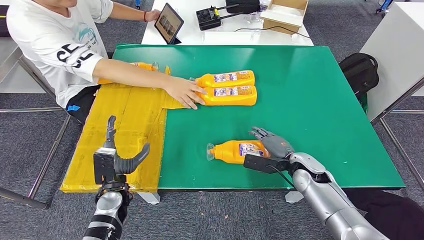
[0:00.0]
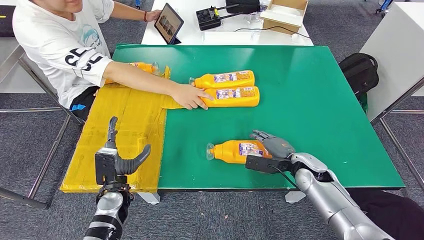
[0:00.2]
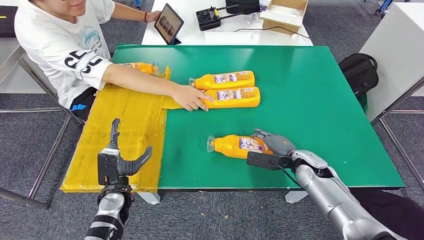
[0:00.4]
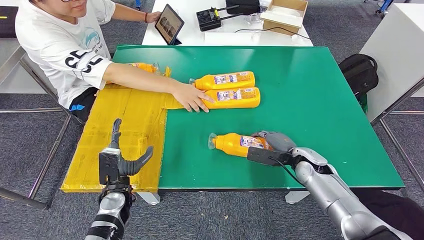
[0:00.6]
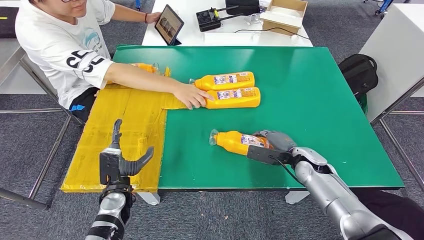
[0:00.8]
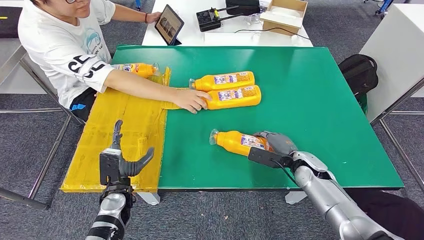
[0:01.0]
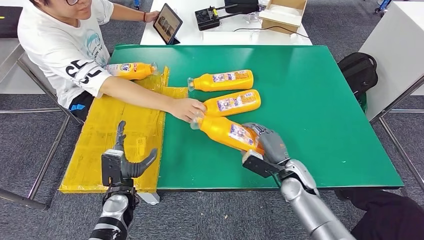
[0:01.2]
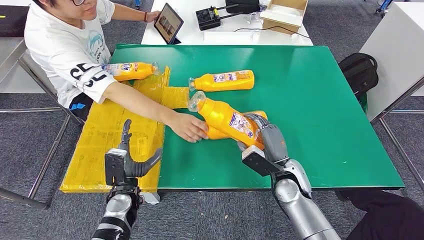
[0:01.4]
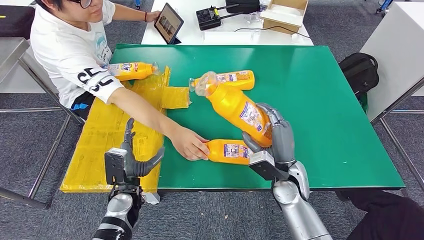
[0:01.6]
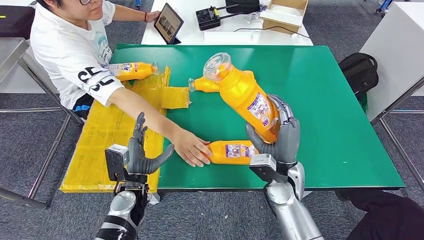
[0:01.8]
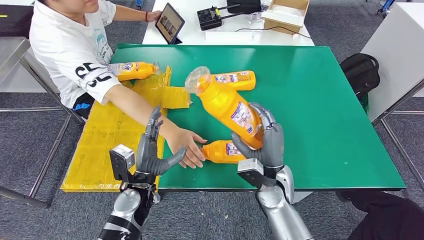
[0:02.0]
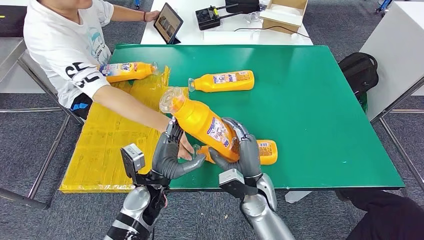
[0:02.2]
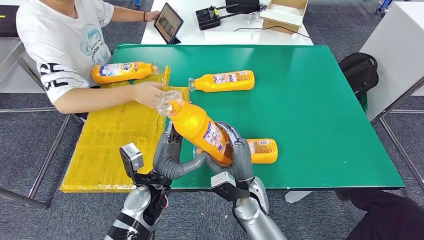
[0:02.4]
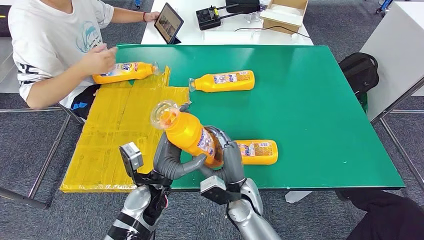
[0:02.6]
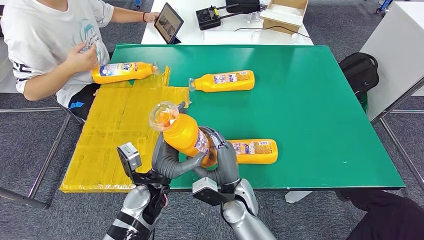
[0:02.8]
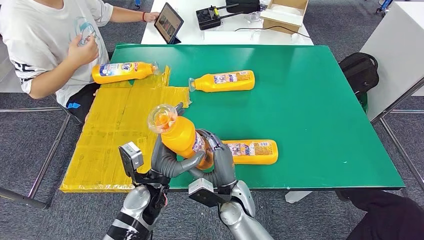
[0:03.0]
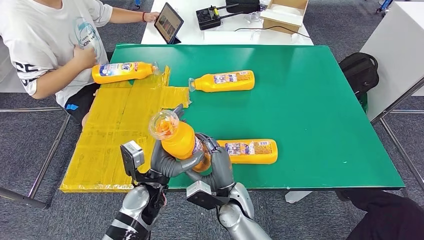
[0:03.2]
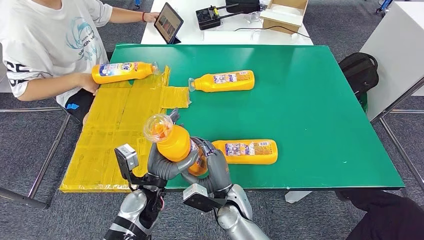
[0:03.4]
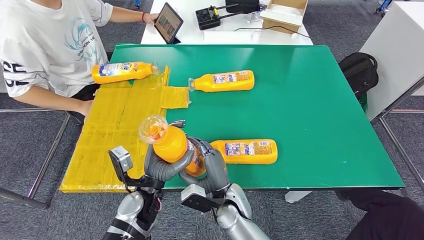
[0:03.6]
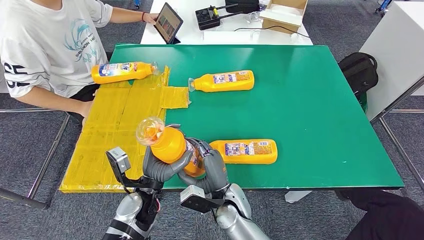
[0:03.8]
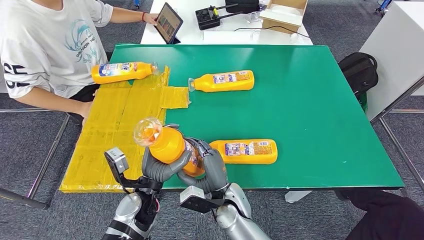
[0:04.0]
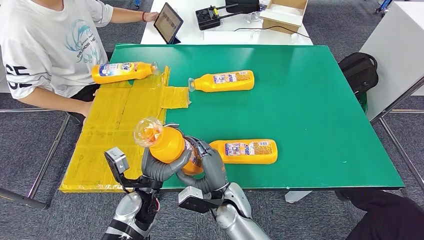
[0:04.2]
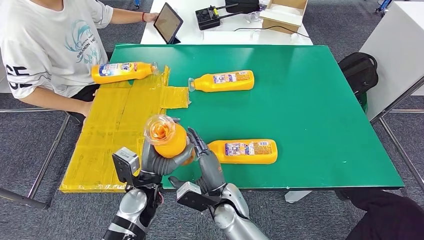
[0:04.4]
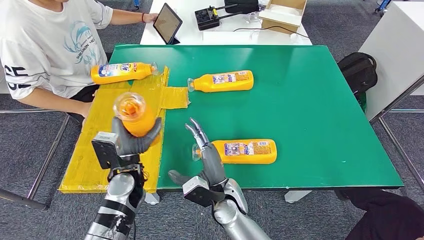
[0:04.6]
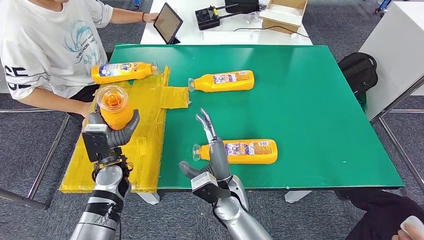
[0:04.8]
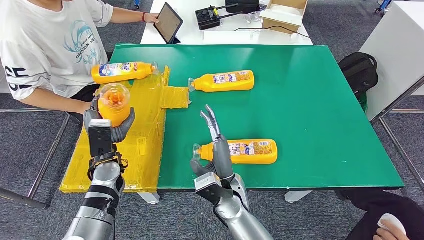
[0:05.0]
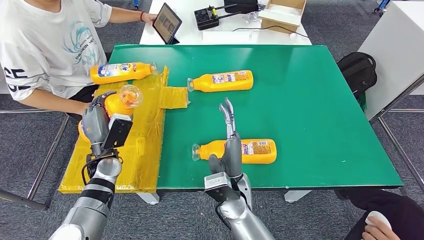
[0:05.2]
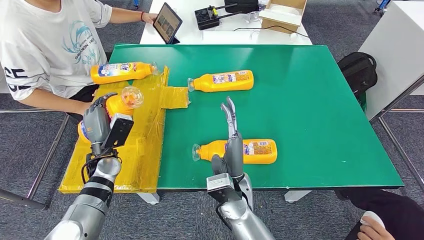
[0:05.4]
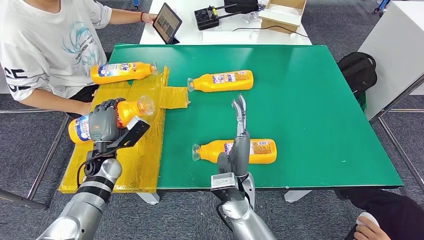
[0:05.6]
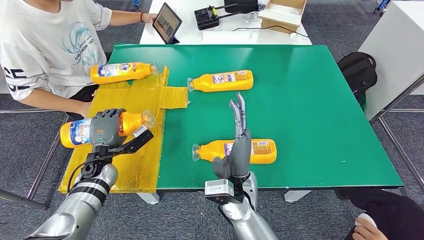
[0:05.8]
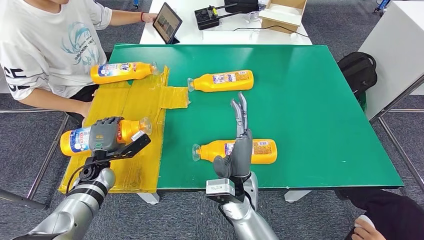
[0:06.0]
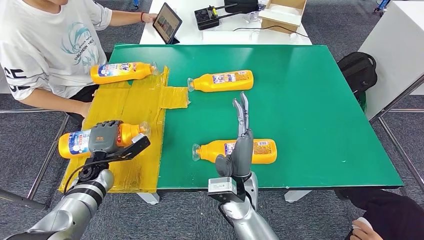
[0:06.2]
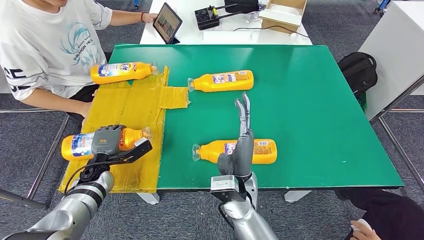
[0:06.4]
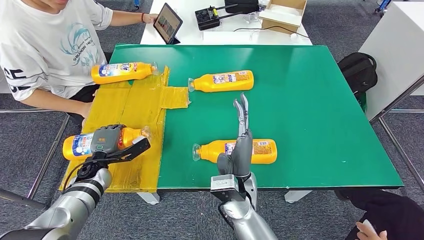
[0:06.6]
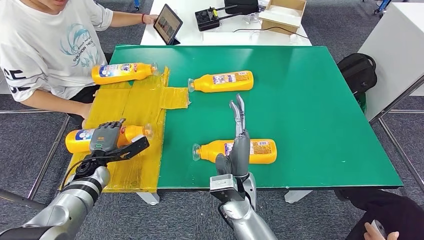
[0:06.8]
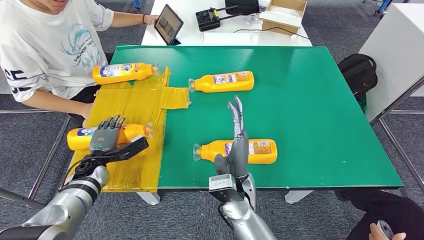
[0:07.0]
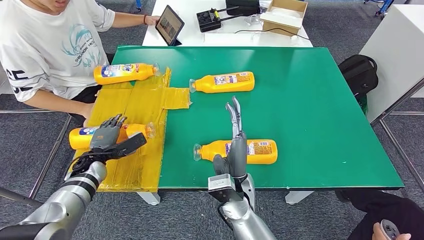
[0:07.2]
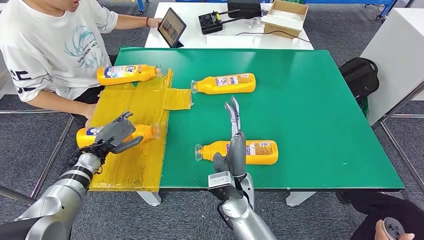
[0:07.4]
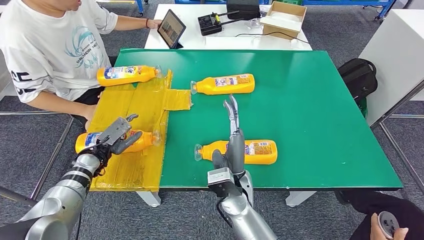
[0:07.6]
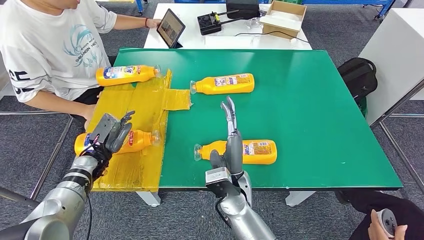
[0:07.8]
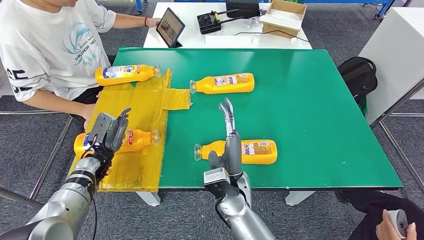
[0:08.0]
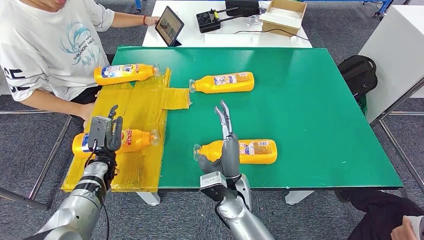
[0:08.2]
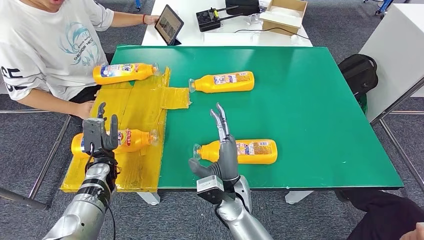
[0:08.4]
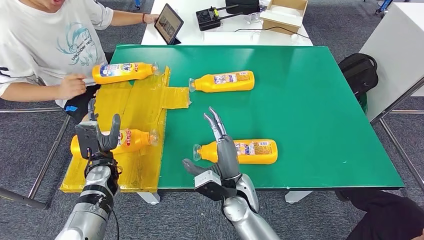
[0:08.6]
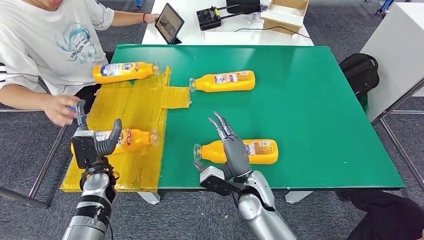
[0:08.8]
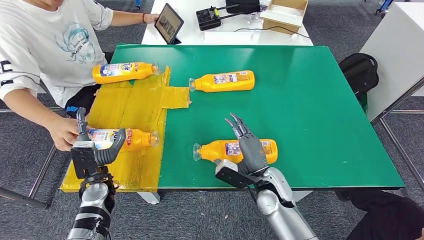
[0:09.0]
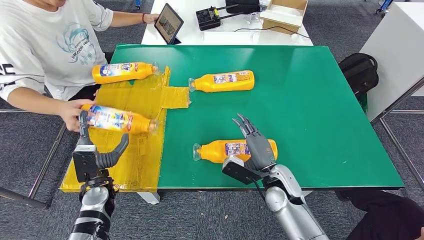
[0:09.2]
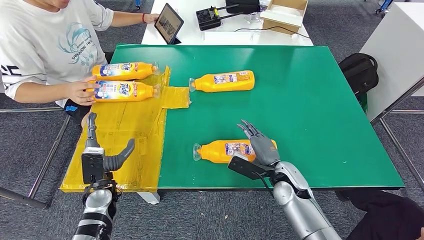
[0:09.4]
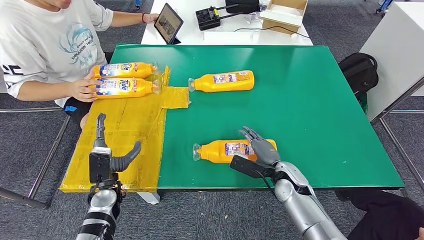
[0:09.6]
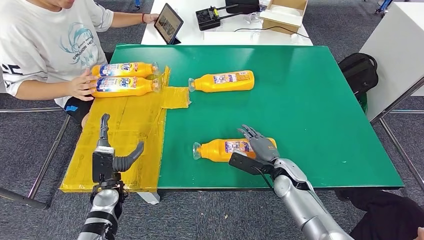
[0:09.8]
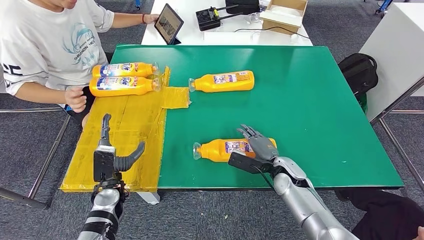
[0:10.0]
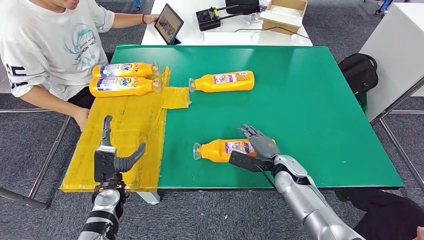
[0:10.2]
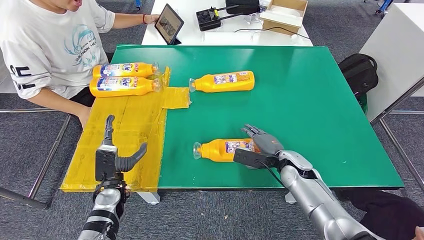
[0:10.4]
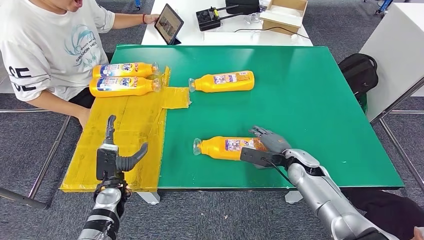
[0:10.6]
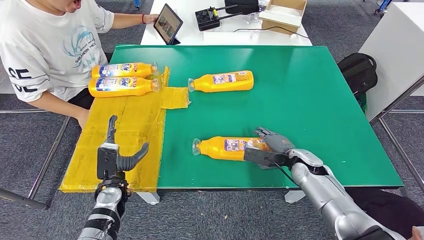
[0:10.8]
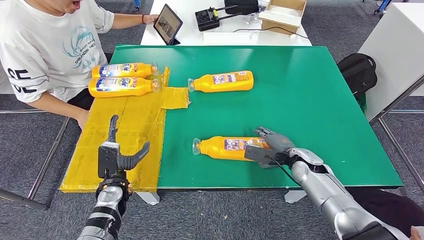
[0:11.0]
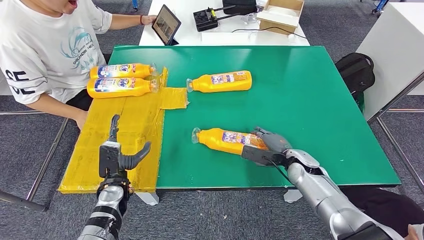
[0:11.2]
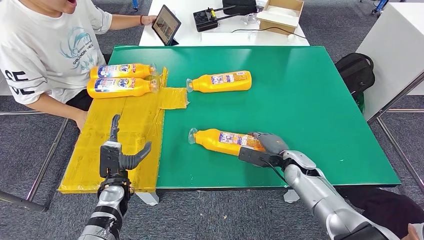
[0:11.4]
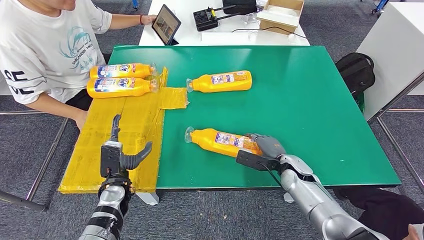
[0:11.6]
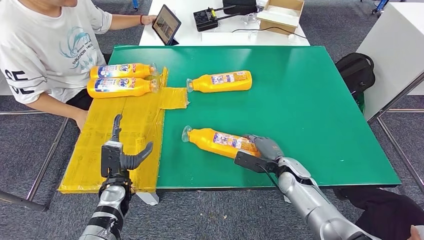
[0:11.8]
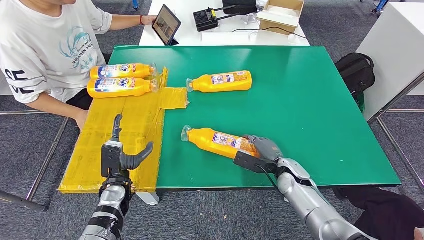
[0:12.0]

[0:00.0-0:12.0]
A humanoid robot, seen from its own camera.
Step, 0:00.0 to 0:02.0: Pick up the fast-moving consumer goods bottle from the table.
Step, 0:02.2 to 0:07.4: Flip the fast-moving consumer goods bottle to the front side.
0:03.0 to 0:04.4: There are only small adjustments of the hands.
0:10.4 to 0:12.0: The hands move only a little.

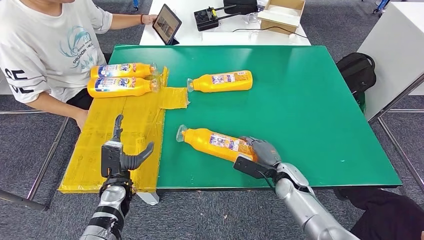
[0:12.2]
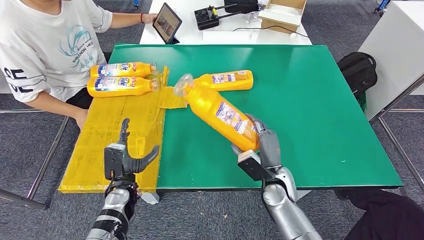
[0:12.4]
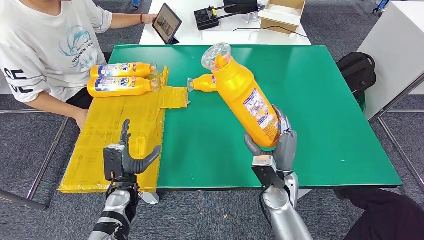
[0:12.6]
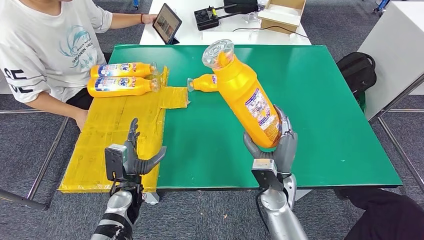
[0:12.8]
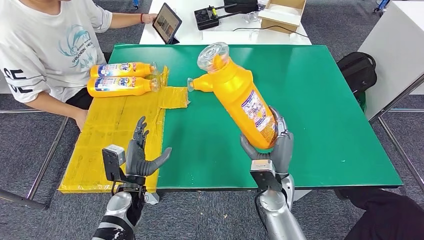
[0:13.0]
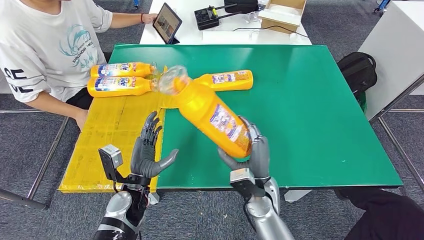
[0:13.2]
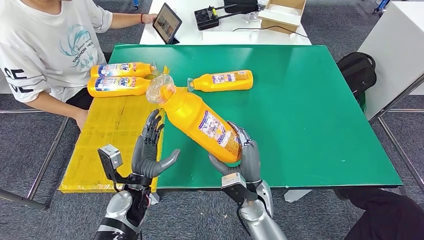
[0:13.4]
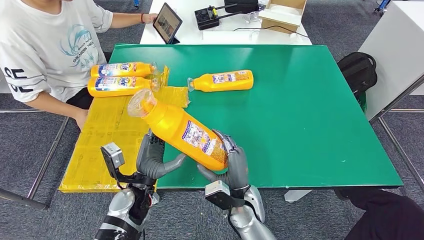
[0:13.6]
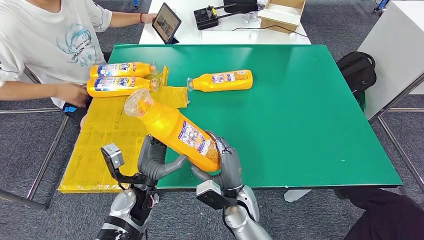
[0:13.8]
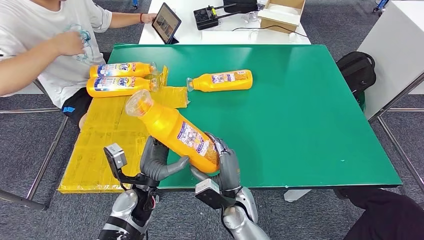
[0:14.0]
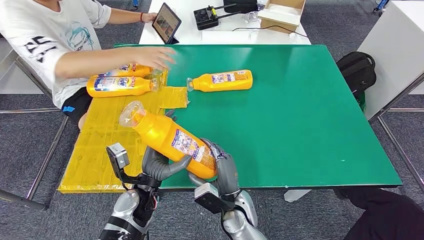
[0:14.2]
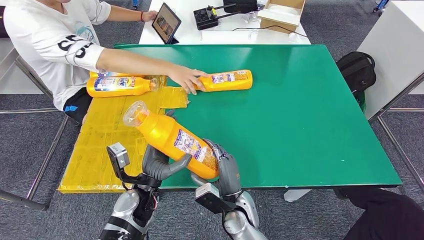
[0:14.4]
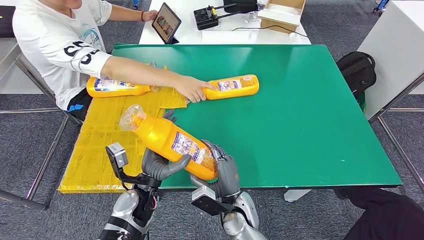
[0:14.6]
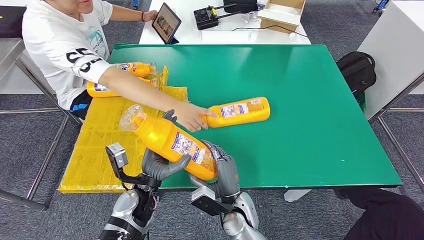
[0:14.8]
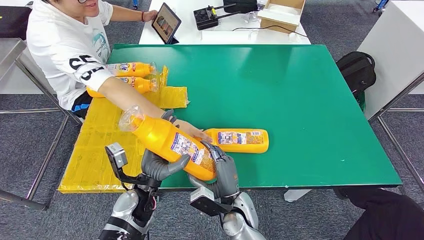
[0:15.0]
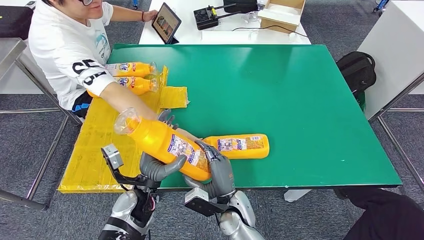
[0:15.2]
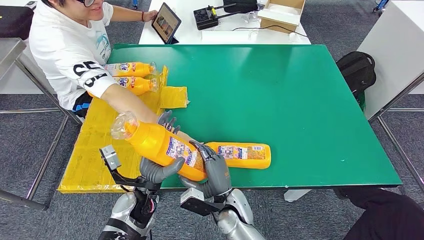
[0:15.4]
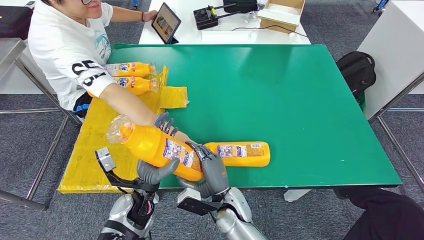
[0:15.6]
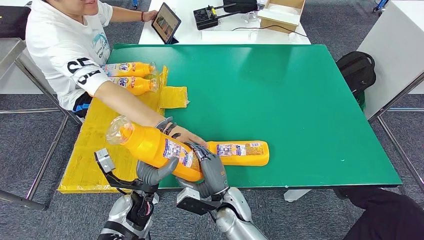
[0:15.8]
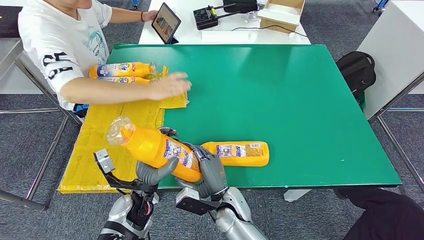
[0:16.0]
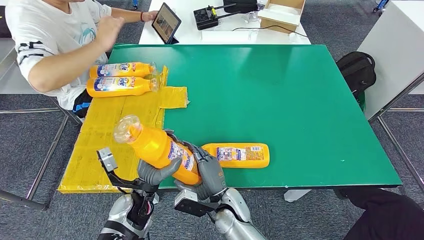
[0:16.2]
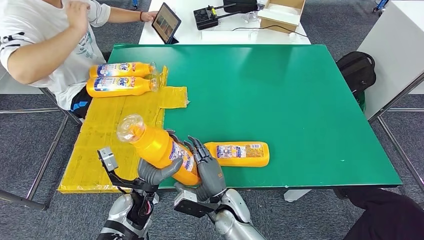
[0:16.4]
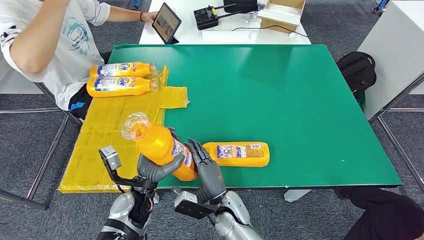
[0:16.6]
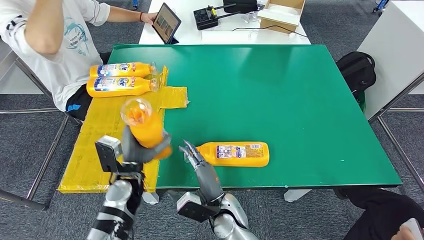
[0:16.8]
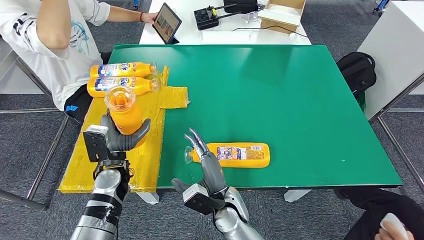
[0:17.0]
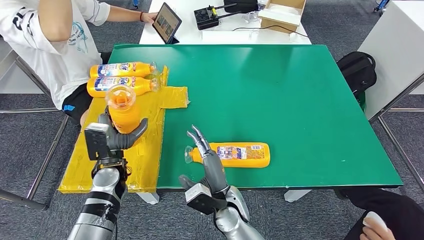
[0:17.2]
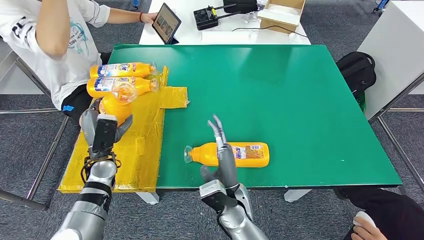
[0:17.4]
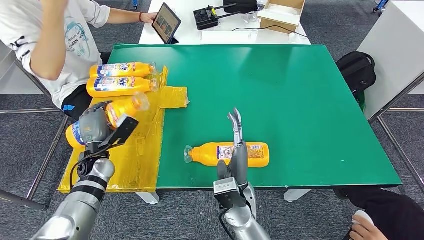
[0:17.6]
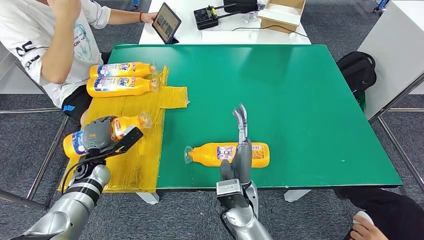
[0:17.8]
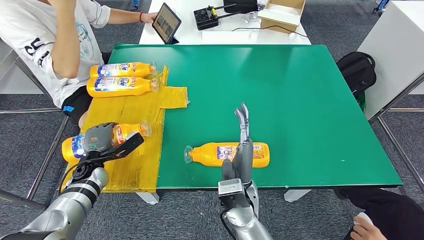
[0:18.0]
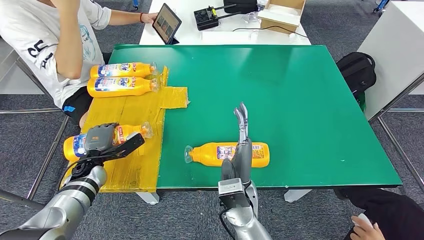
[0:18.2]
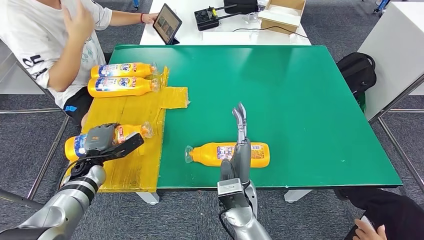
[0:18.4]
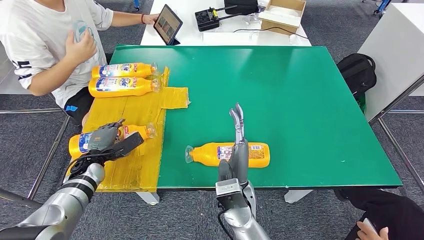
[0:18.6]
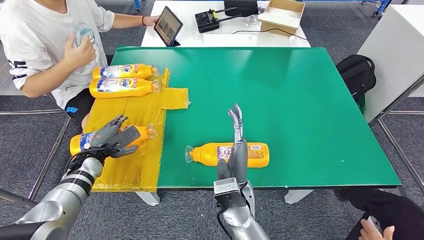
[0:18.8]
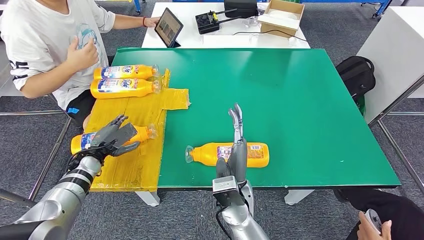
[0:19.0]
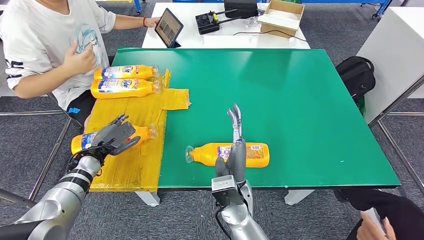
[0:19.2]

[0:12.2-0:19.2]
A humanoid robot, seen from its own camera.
Step, 0:12.6 to 0:19.0: Flip the fast-moving consumer goods bottle to the front side.
0:12.2 to 0:13.6: The right hand shifts some 15 cm to the left and backward, while the left hand heads to the right and upward, covering roughly 10 cm.
0:15.0 to 0:16.4: There are only small adjustments of the hands.